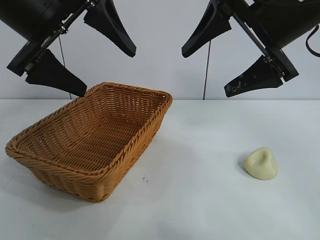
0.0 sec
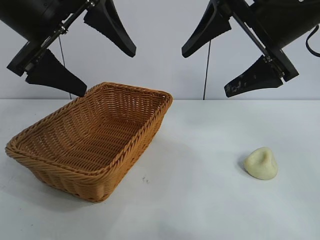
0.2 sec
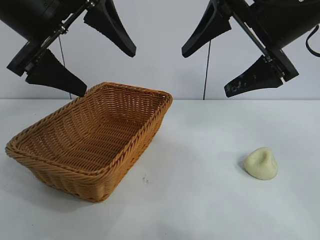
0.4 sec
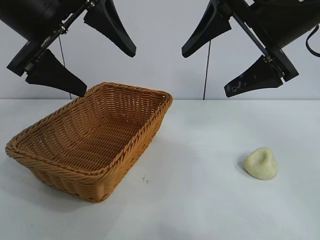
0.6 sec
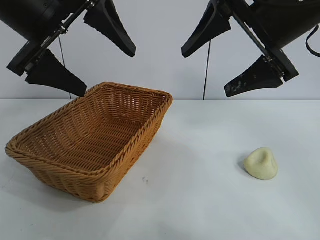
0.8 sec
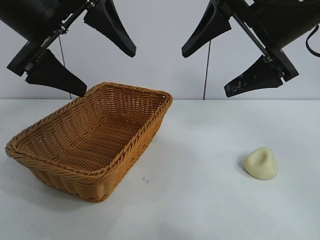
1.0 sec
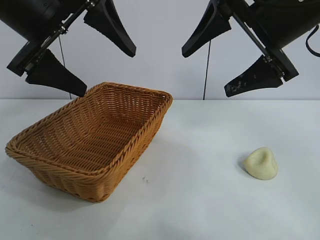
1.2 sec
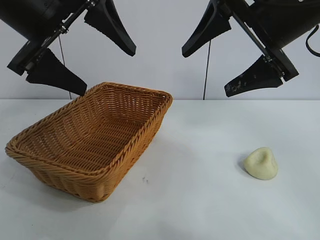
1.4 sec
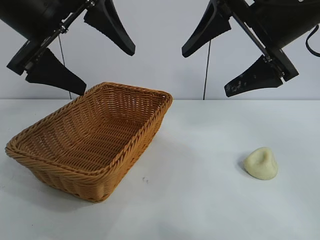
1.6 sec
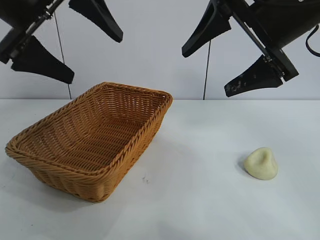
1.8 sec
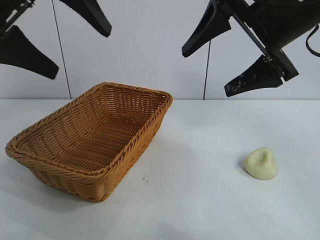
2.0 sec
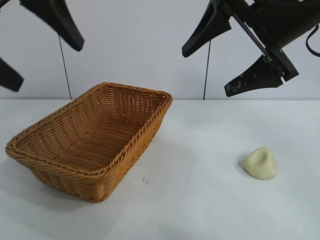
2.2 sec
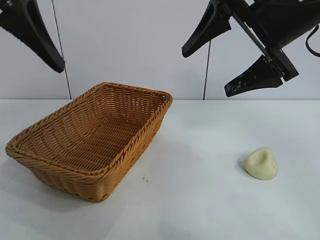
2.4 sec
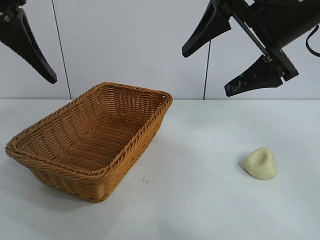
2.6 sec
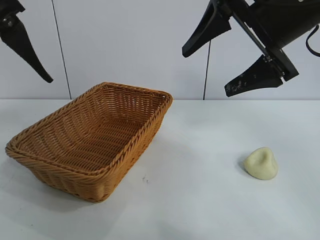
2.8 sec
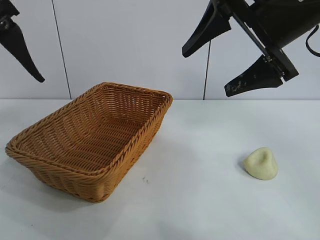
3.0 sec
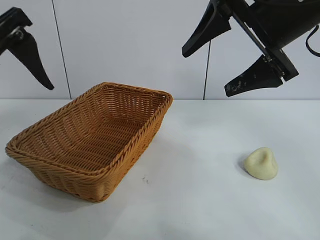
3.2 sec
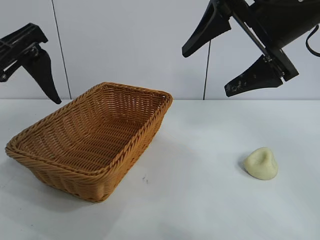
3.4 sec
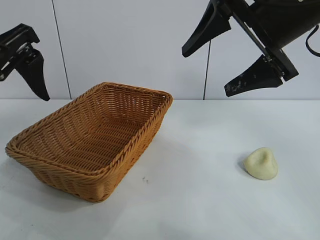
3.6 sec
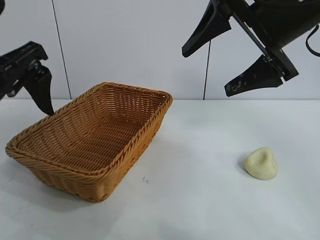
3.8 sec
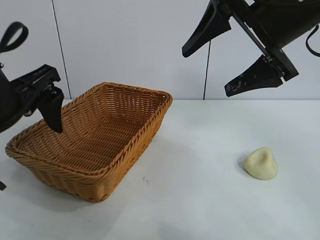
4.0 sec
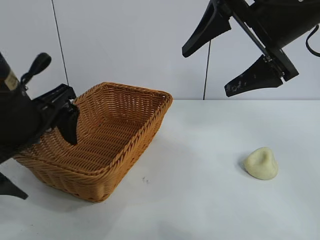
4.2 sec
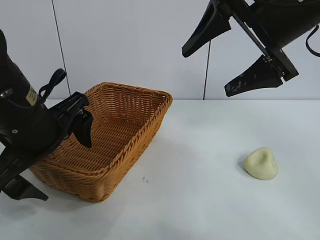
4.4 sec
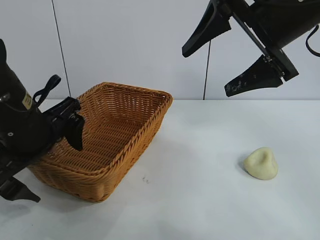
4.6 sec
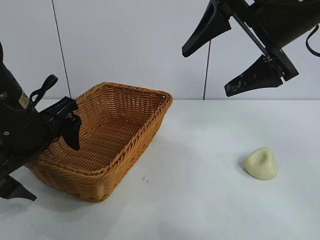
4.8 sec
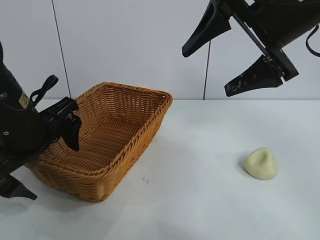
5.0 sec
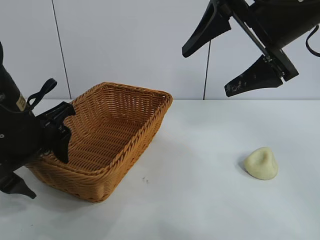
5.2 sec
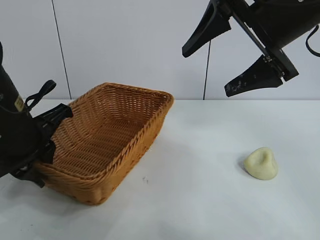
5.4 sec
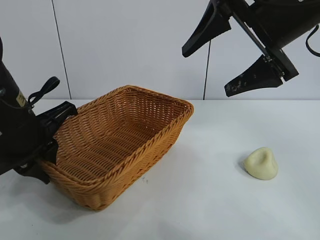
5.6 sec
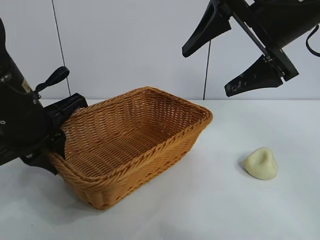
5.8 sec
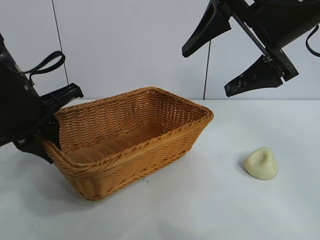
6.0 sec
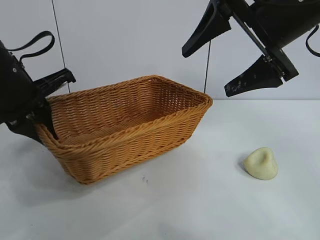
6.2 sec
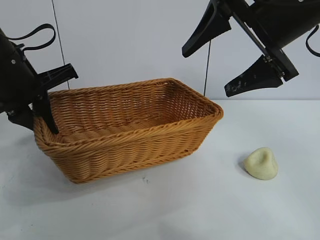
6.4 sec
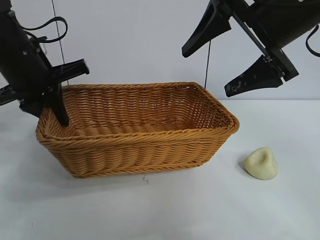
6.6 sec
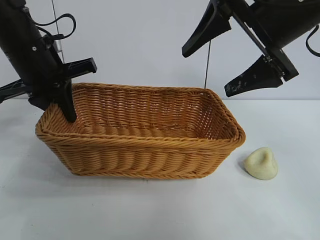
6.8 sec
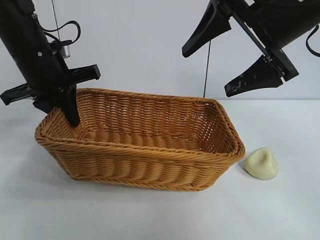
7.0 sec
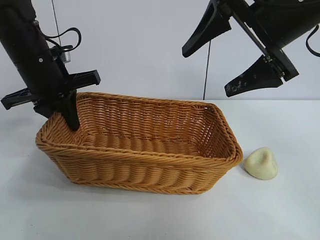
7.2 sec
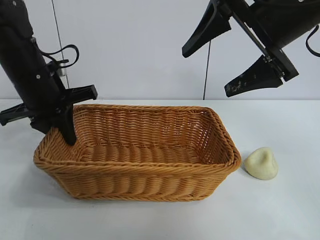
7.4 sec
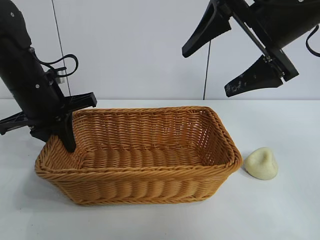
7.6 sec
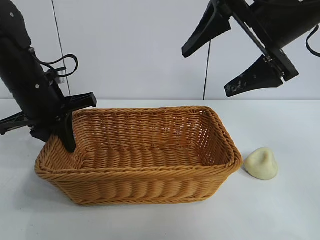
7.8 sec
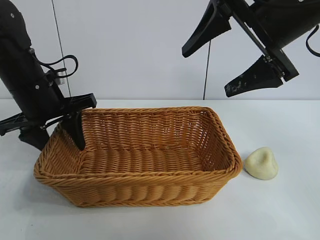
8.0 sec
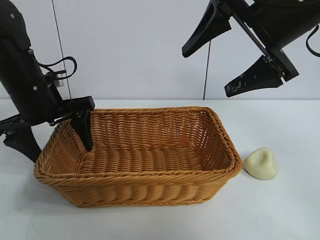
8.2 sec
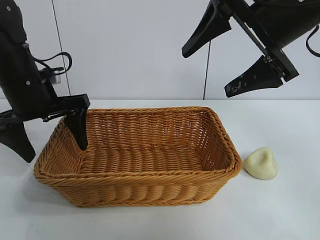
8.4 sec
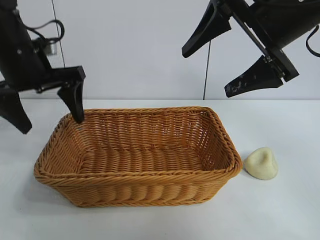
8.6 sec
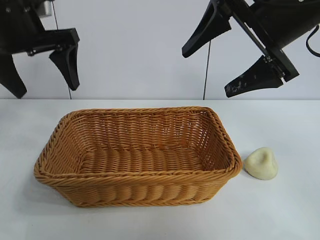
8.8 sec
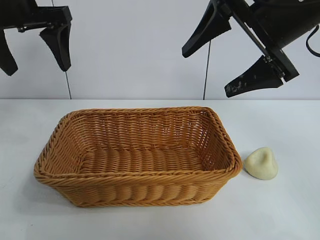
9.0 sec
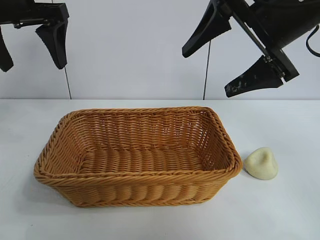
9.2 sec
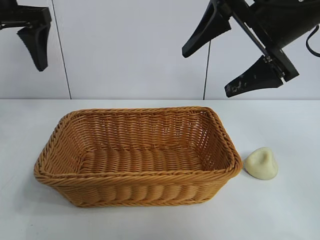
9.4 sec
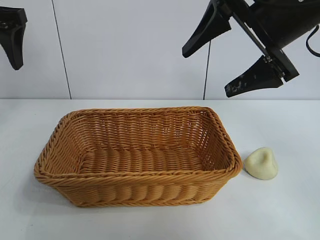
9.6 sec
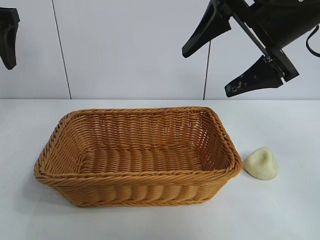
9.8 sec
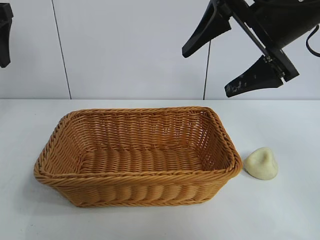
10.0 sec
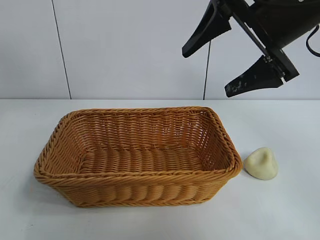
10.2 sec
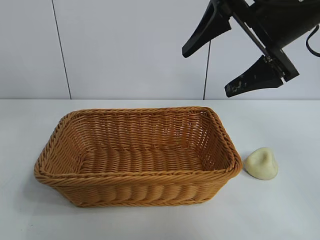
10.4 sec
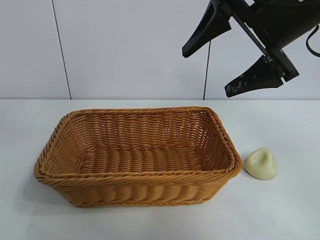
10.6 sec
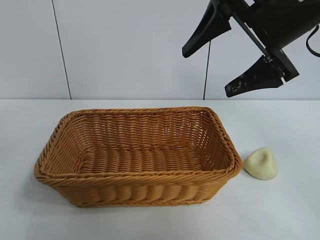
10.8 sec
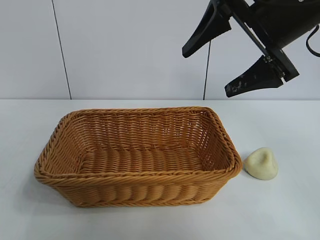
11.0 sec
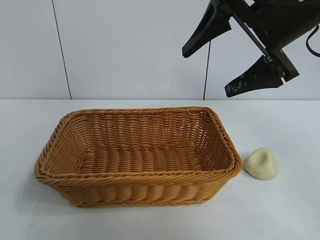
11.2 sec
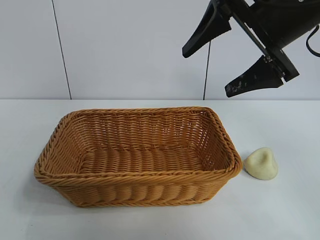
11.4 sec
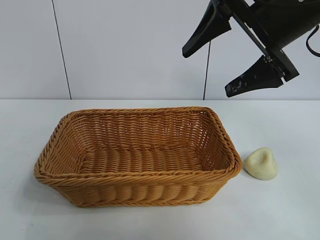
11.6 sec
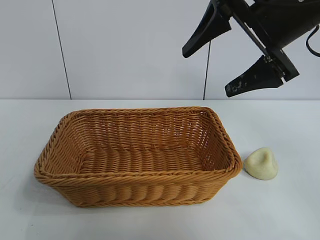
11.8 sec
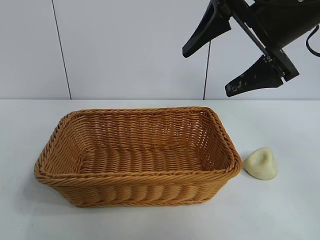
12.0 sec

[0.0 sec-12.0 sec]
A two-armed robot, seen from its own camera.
Task of the whole recording: pick up the egg yolk pastry and put it into the basket.
Step, 1.4 sec to 5.4 sec: Grasp the basket with left gripper.
Step, 5.6 sec to 8.0 sec: Place the basket in the center of view with left gripper.

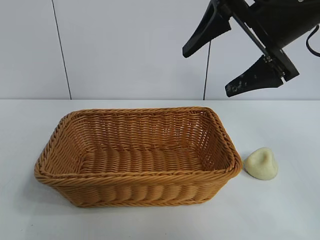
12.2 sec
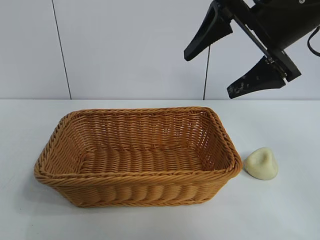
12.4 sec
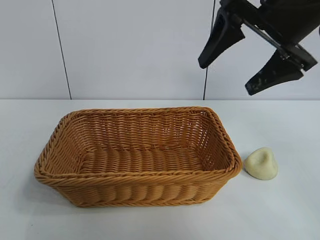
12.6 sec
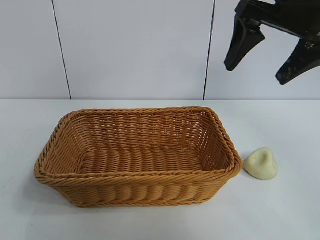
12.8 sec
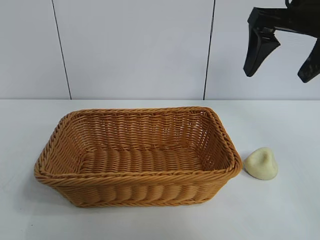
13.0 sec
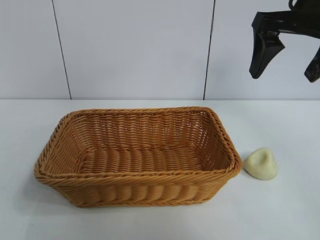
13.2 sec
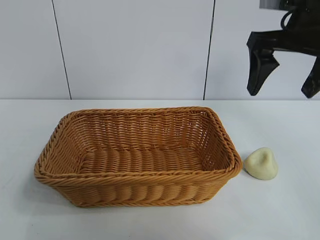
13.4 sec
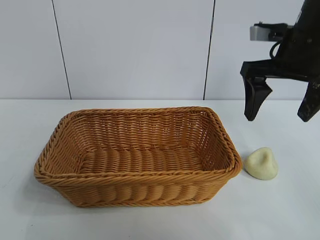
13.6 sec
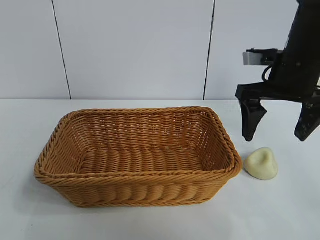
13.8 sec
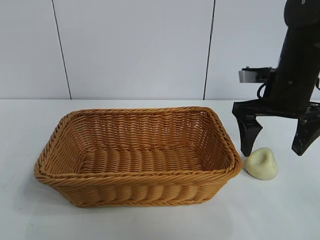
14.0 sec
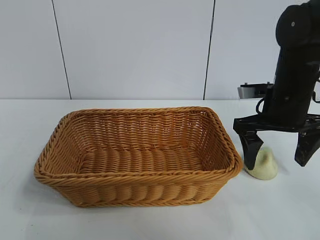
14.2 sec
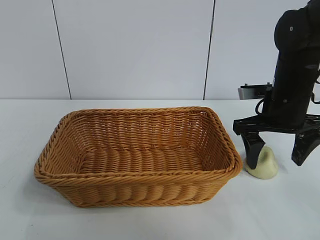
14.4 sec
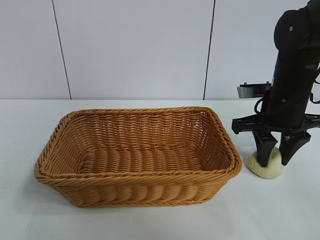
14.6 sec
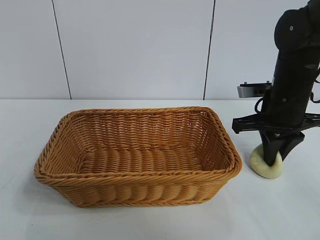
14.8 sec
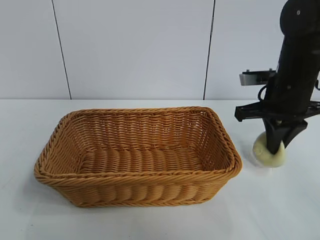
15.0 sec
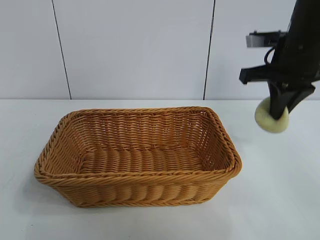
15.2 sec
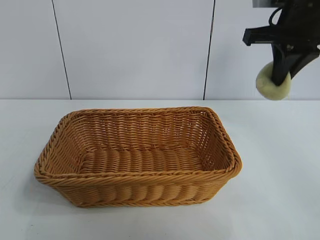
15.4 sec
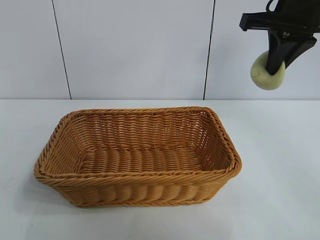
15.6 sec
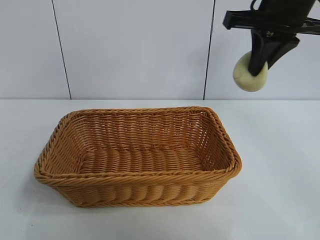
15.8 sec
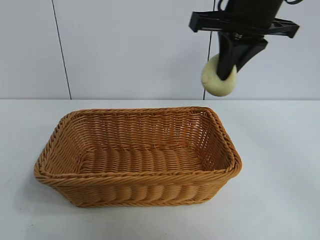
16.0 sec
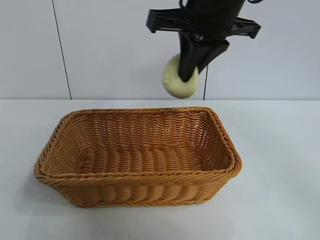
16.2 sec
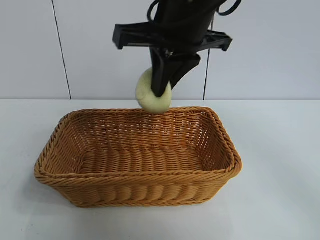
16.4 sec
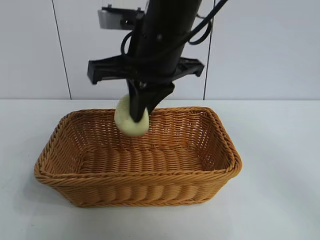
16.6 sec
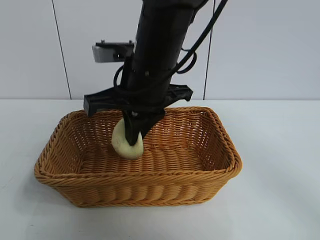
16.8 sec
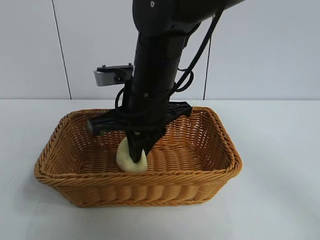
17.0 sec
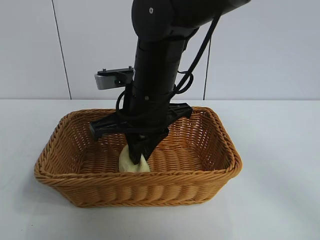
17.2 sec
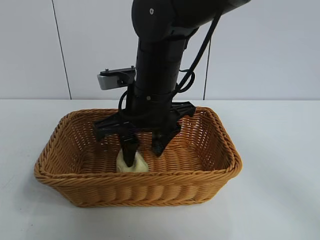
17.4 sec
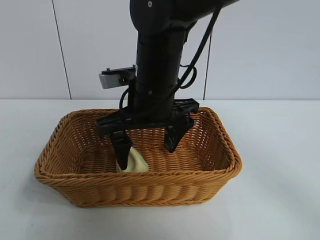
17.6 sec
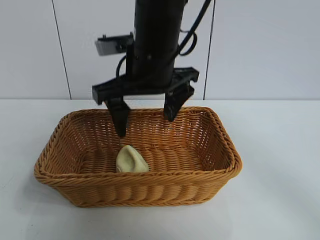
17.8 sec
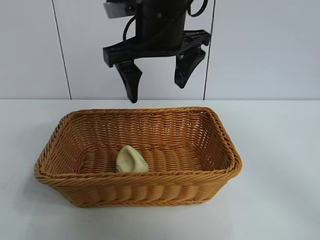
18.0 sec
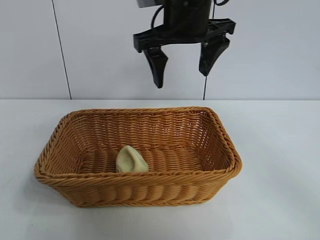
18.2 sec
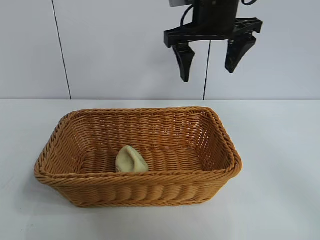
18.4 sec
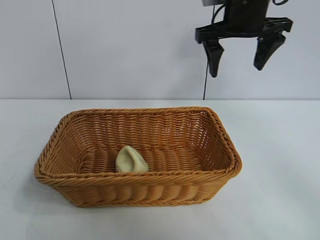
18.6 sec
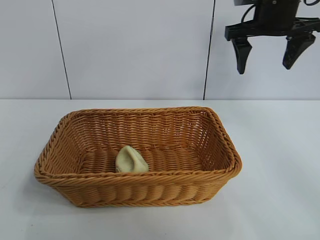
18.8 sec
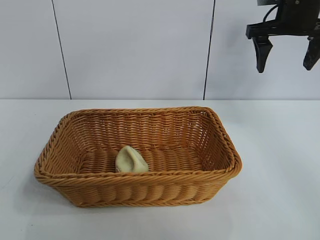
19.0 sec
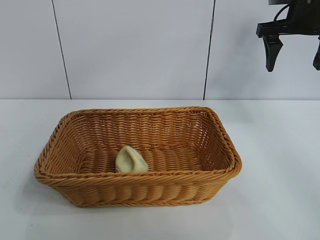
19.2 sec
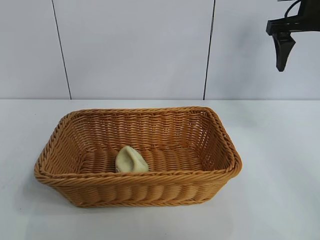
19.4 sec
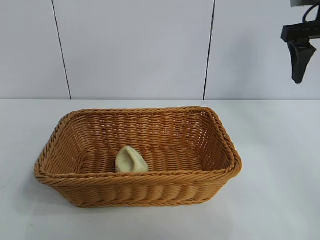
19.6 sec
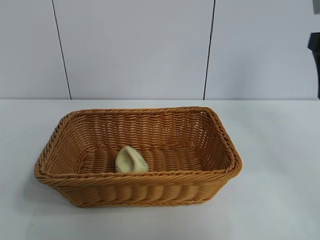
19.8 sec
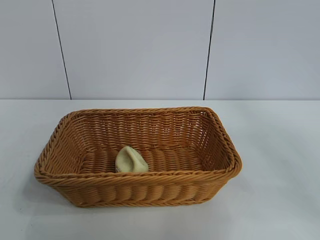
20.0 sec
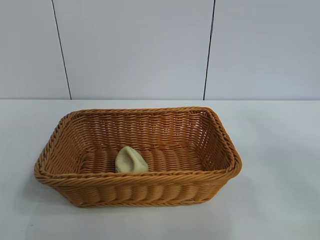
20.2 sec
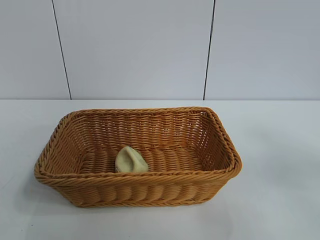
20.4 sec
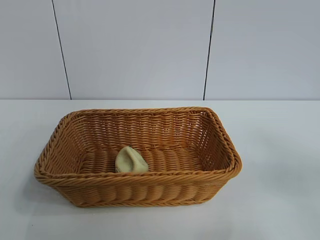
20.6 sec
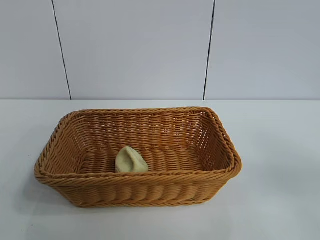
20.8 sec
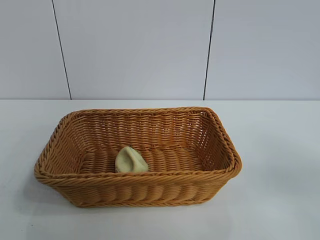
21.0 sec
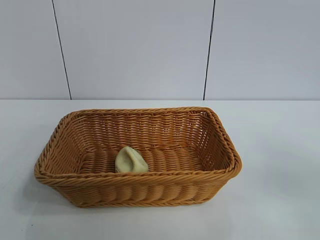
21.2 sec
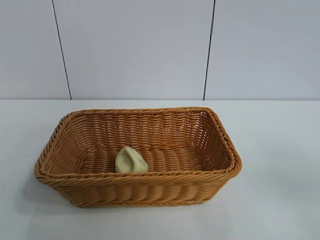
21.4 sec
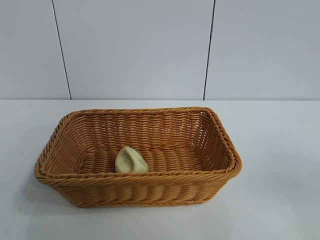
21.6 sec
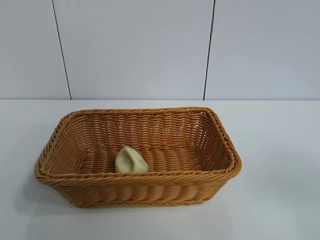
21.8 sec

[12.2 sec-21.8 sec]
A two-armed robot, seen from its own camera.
Task of the whole recording: pick up the egg yolk pastry and put it into the basket.
Step, 12.2 sec to 14.6 sec: Grasp egg yolk pastry with right gripper.
Step, 15.0 sec to 17.6 sec: Place the egg yolk pastry in the basket with right gripper.

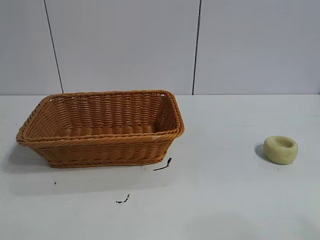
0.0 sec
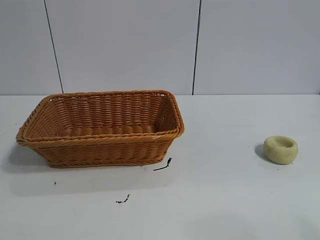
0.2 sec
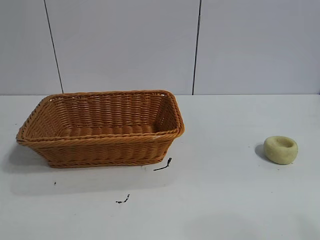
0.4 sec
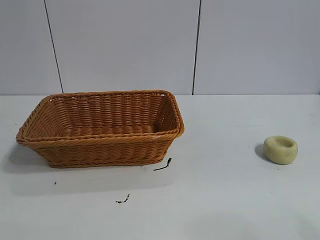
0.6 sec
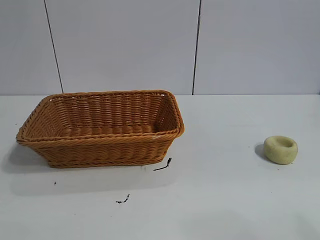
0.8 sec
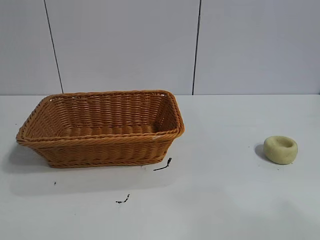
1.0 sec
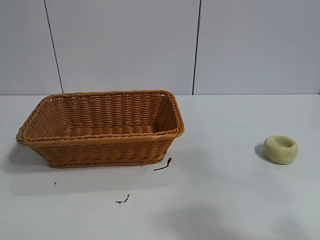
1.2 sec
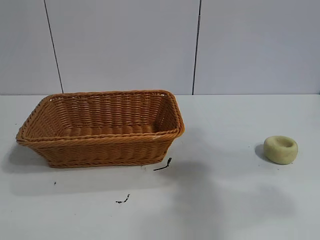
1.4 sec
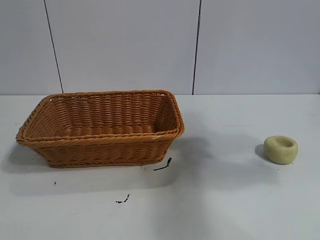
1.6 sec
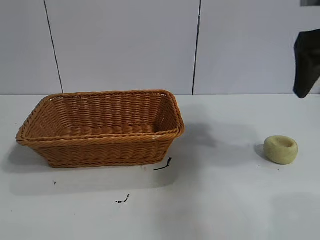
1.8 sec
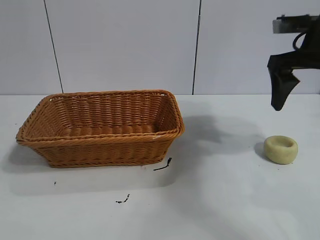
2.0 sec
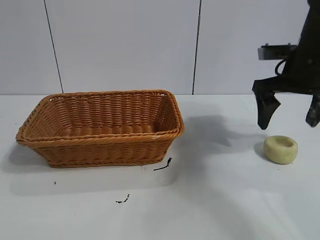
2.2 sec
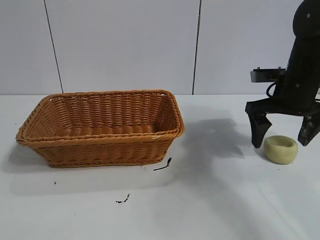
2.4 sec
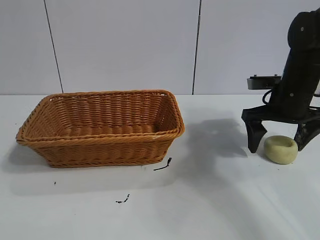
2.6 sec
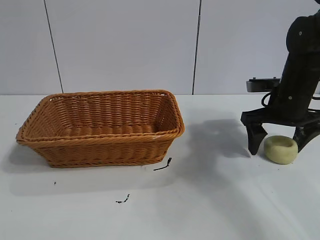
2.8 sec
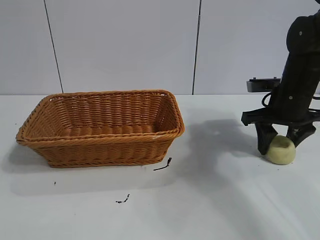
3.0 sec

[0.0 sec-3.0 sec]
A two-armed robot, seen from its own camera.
Task of the whole recording: pick up the egg yolk pastry and put it into the basket.
Step, 0.8 sec to 3.0 sec: Grasp egg yolk pastry with right gripper.
